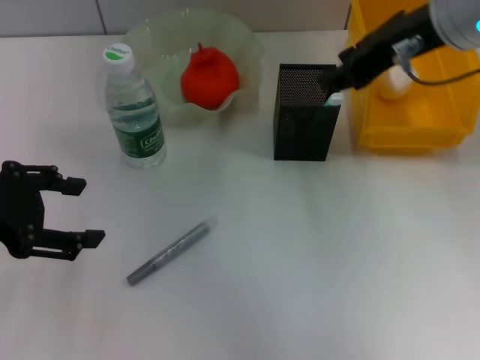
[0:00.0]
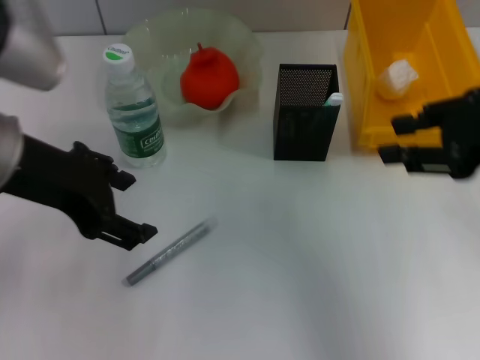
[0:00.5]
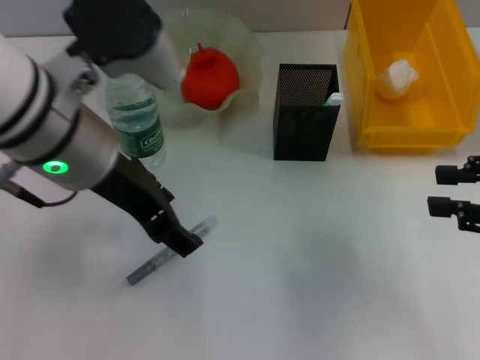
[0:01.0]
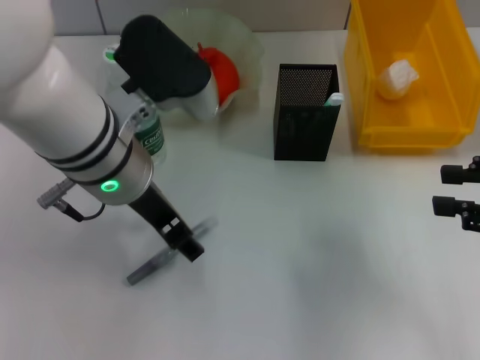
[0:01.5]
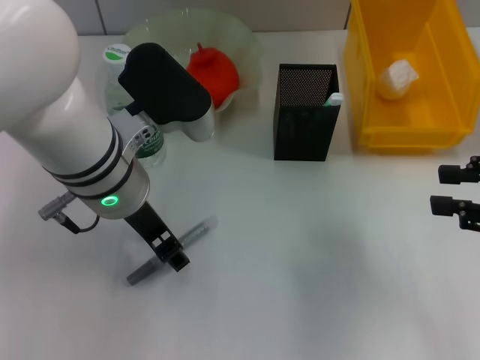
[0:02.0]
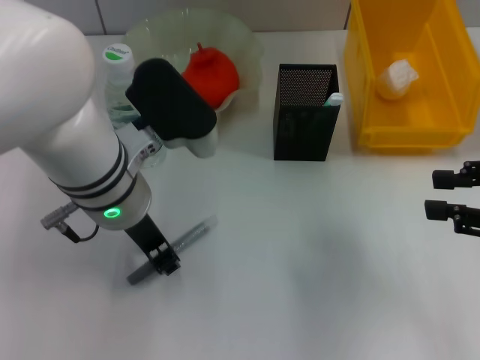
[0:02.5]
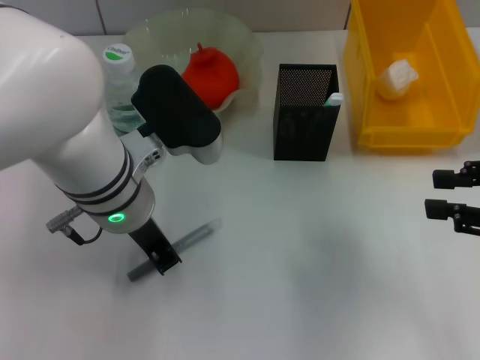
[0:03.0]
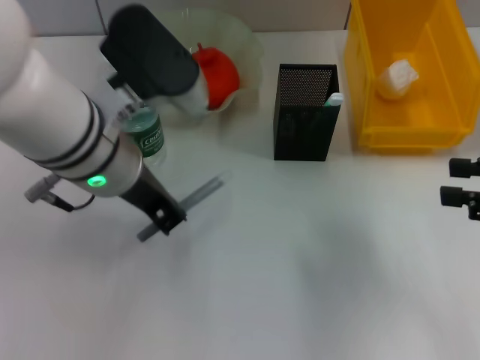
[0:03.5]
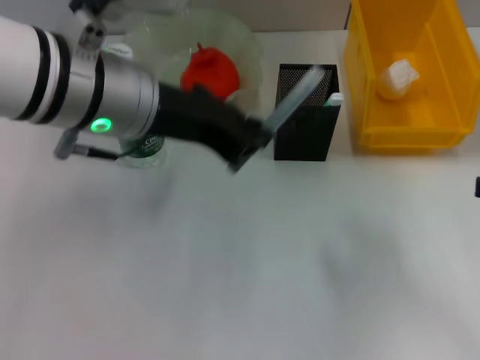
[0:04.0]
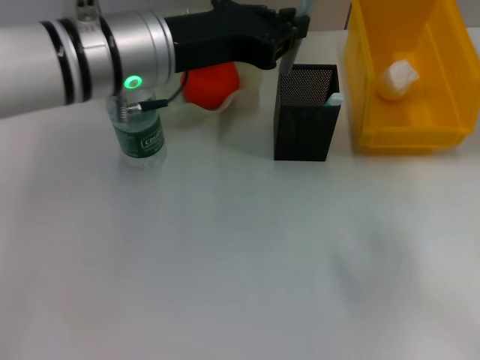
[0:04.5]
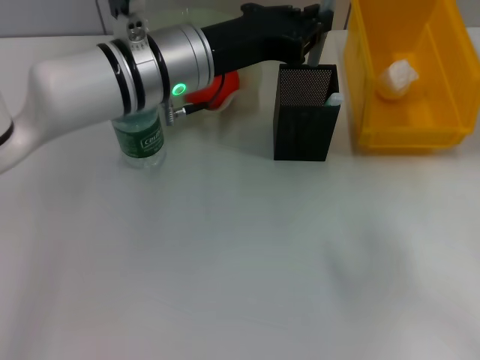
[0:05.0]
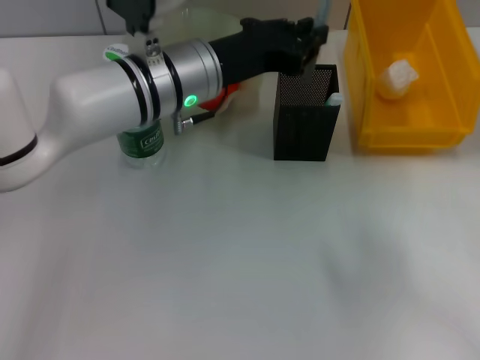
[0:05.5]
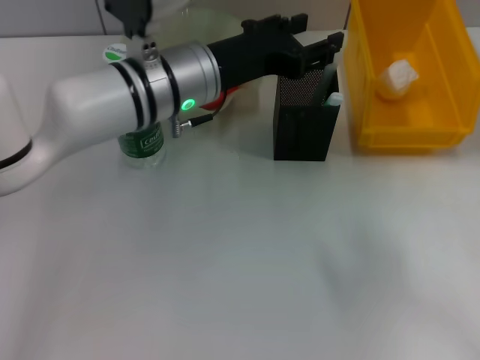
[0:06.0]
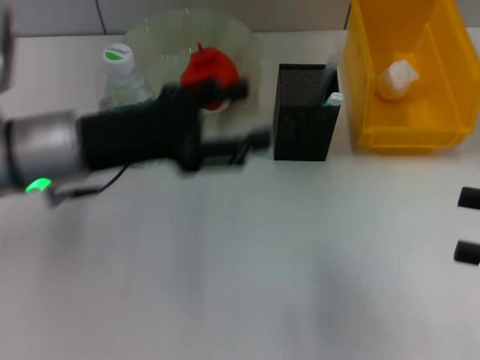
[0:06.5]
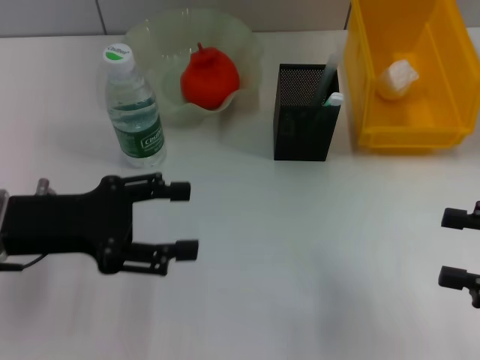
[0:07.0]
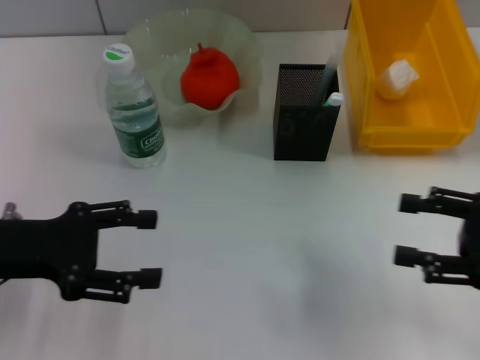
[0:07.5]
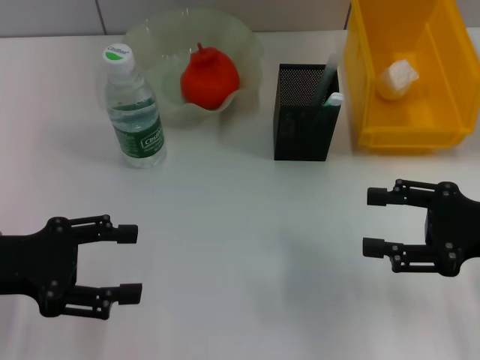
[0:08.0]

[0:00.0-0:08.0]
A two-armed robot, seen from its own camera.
Step, 0.0 to 2.5 s: Grab the gray glue with the left hand.
Step, 3.0 to 5.5 s: Place the gray glue into the pen holder with the left hand.
0.0 to 2.0 s: The right gripper shifts approximately 20 cm to the right, backward and downward. Meanwhile the left gripper moves to the right, roughly 20 cm.
2.0 to 4.0 s: The left gripper goes approximately 5 cm upward, and closes.
4.0 to 6.0 s: The left gripper goes roughly 10 cm downward and forward, and opens its fingers.
6.0 to 8.0 s: The right gripper is displaced to the left and downward by some 10 cm, and opens up; the left gripper heads to the left and backward, covering approximately 25 cm, and opens up.

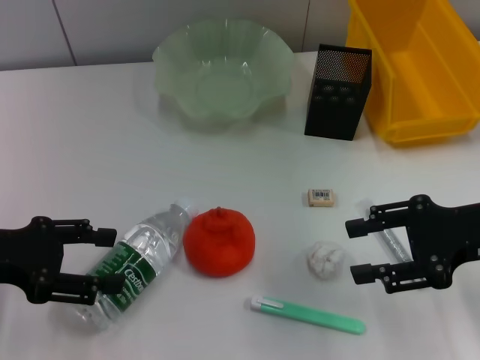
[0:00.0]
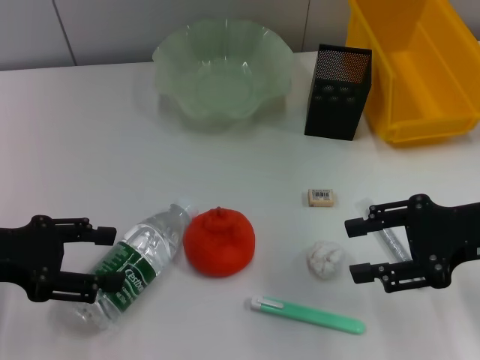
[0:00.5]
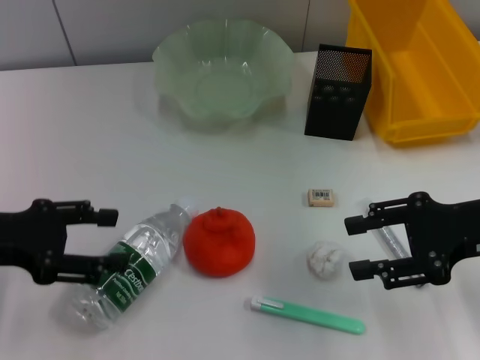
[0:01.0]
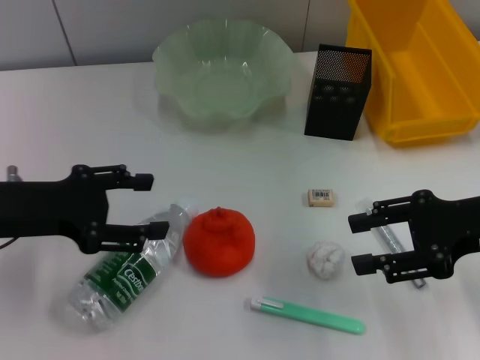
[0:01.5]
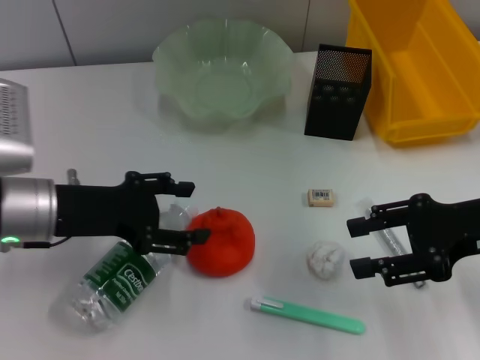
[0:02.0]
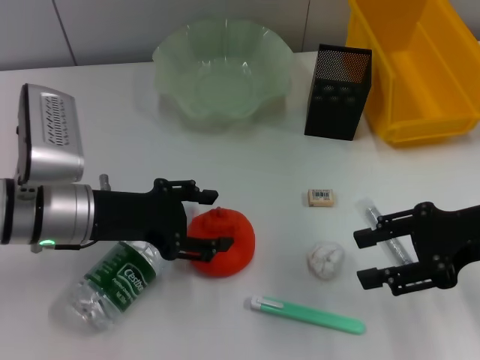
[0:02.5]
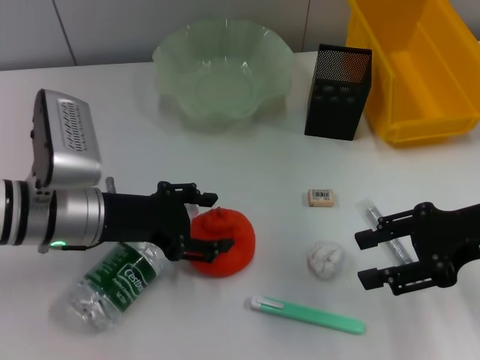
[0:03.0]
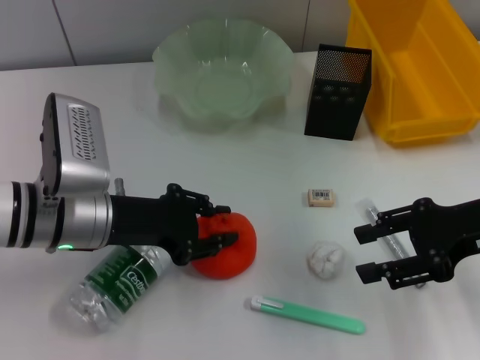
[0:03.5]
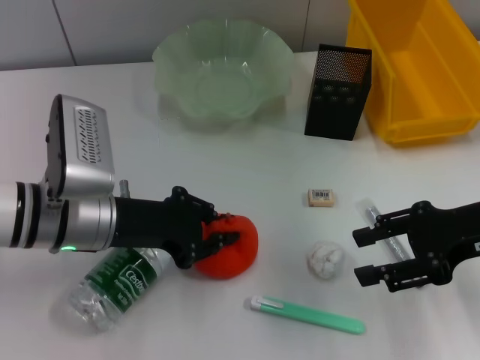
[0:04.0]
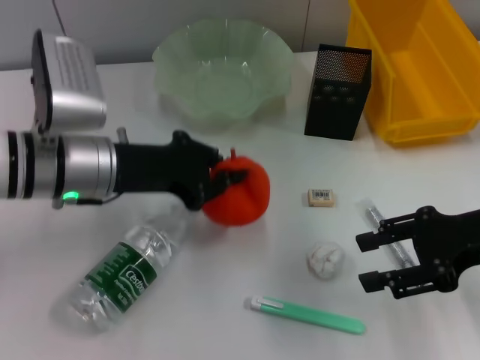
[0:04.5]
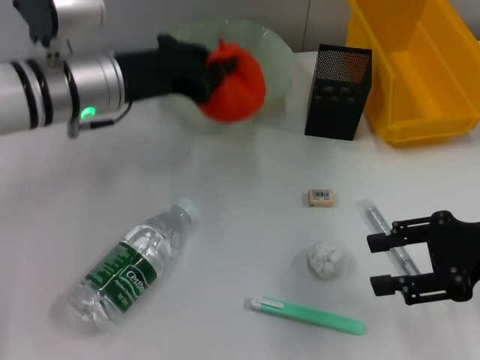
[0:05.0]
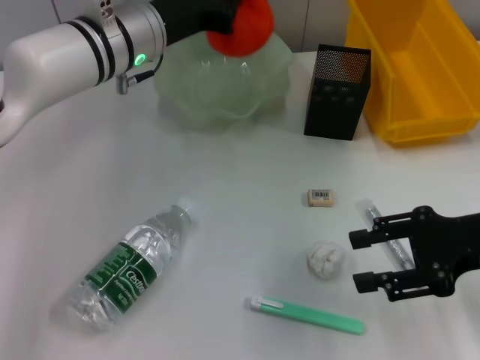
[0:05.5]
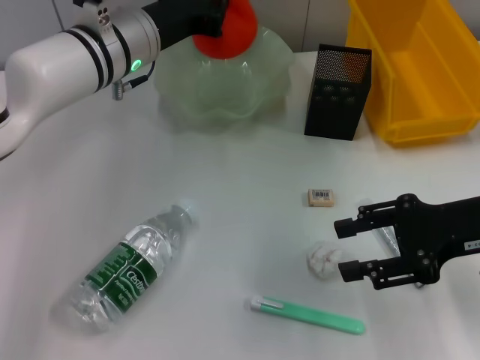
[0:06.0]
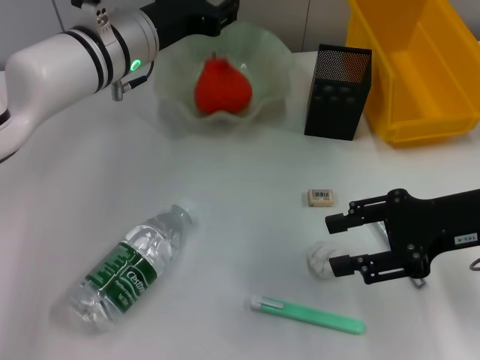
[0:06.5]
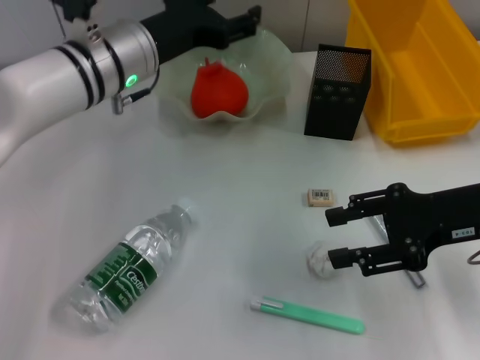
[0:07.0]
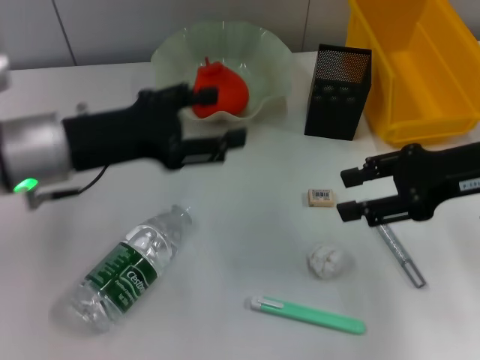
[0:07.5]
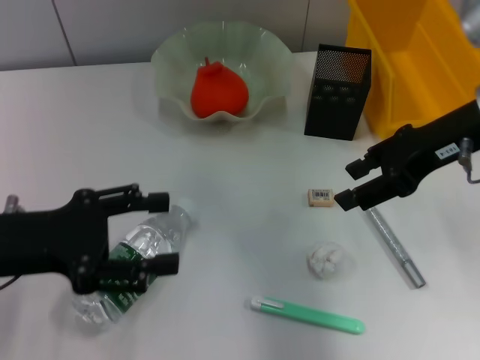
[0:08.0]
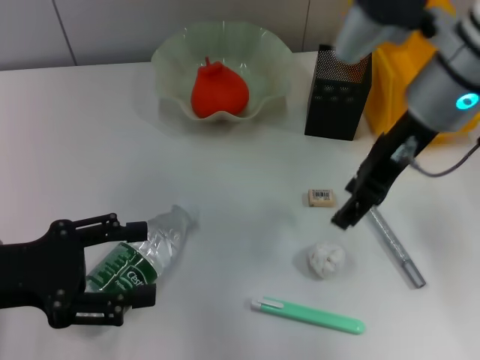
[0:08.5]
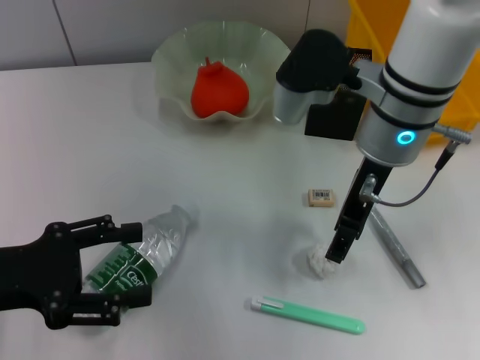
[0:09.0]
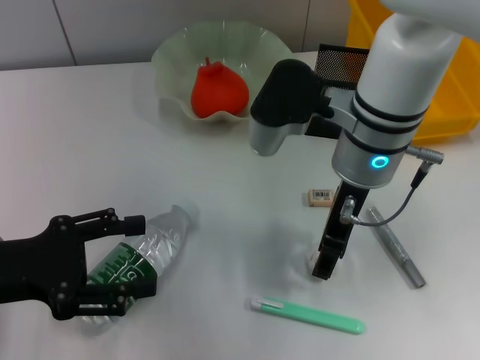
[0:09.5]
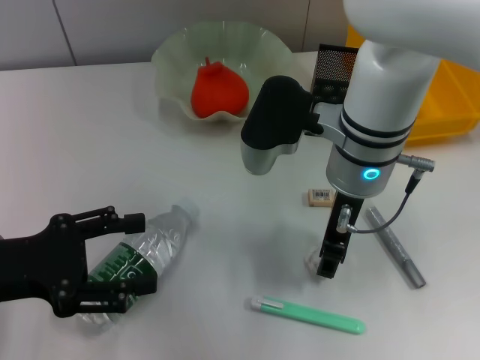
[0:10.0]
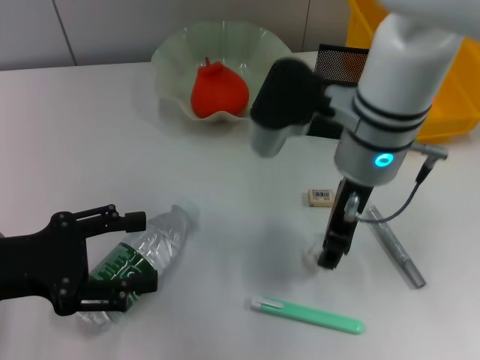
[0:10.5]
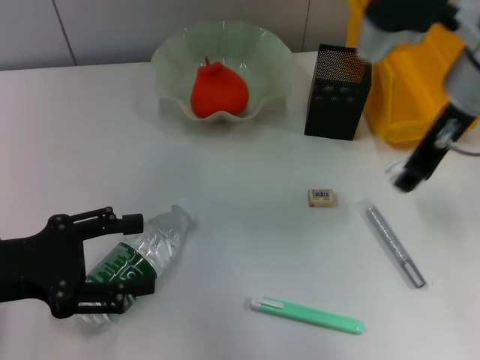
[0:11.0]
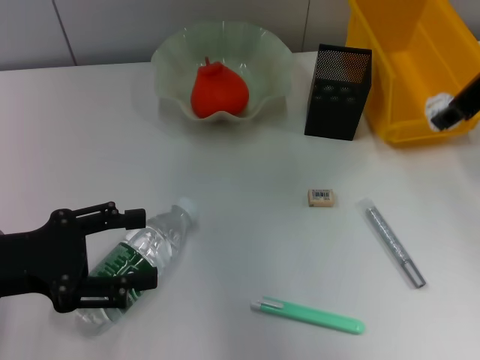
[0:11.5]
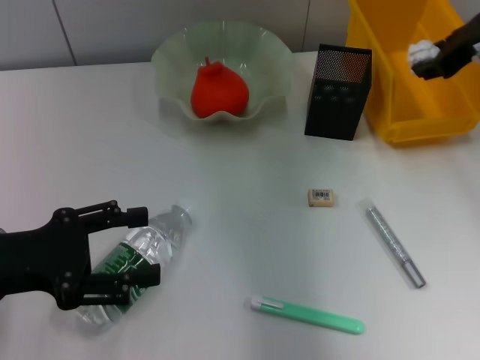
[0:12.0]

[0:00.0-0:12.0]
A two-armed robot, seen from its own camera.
Step, 0.0 to 3.5 s: Grab the orange with the left hand.
Step, 4.0 to 6.5 s: Place the orange into the fruit bowl with the left hand.
Step, 7.0 to 10.0 s: Grab the paper ball with the right hand.
0.0 to 2.0 s: The left gripper travels to the right by approximately 10 cm.
2.0 to 4.0 s: The left gripper closes its fingers.
4.0 to 6.0 s: The left gripper goes some 15 cm forward, upward and to the right.
6.0 to 8.0 s: The left gripper is displaced backward and to the left by some 20 cm, and opens. The right gripper goes some 10 cm upward and forward.
8.0 to 10.0 s: The right gripper moves to the left and downward, about 15 cm.
10.0 to 12.0 s: The right gripper heads to the right, covering some 20 cm.

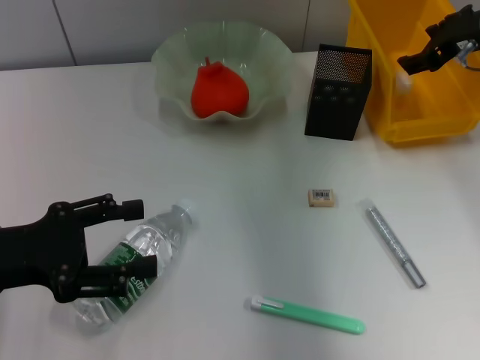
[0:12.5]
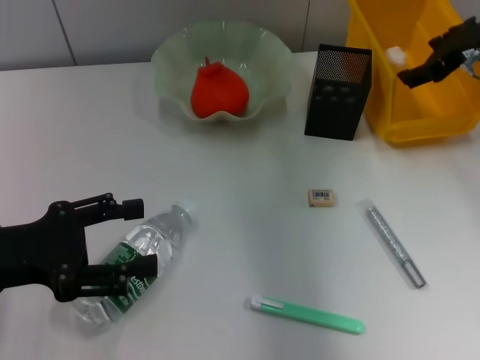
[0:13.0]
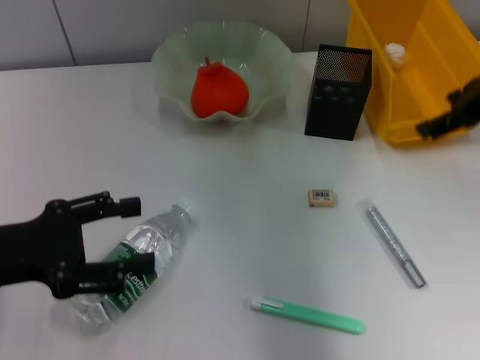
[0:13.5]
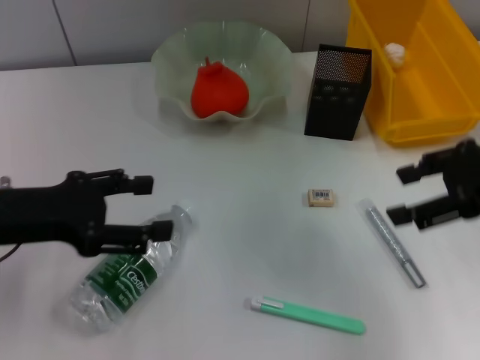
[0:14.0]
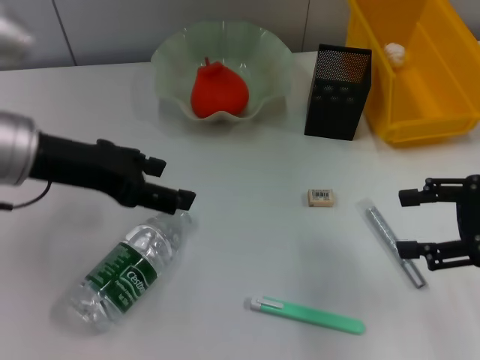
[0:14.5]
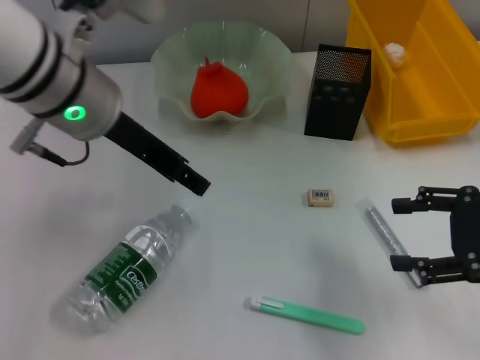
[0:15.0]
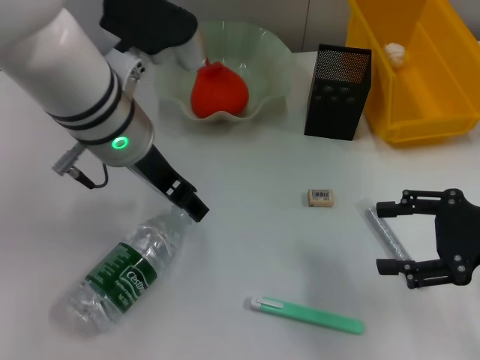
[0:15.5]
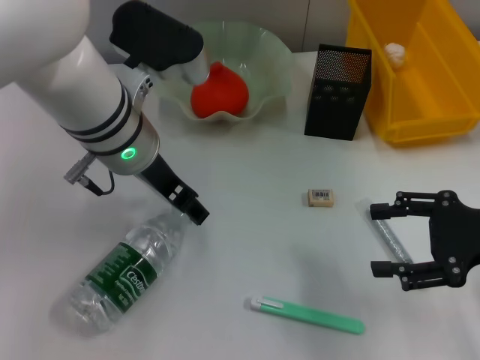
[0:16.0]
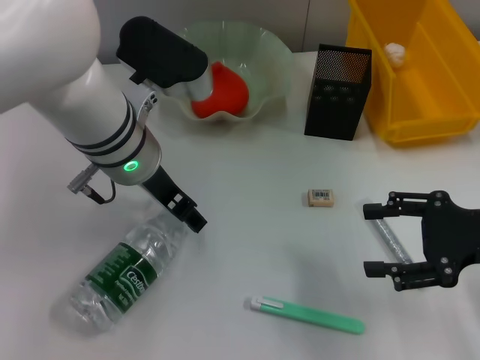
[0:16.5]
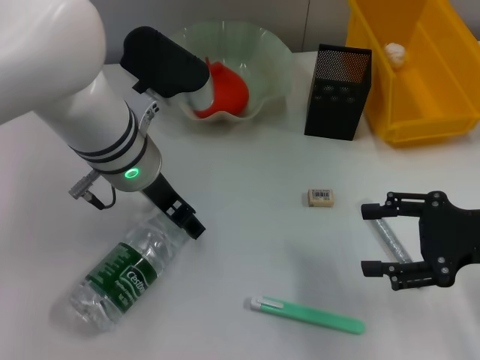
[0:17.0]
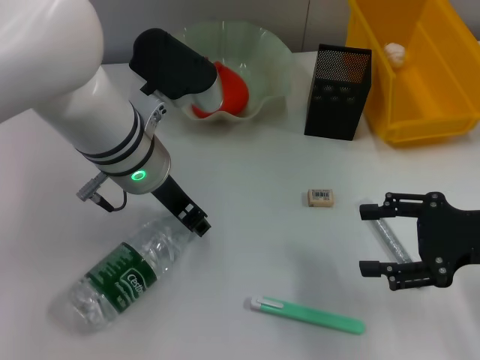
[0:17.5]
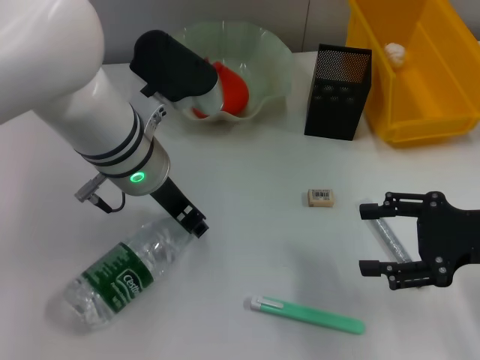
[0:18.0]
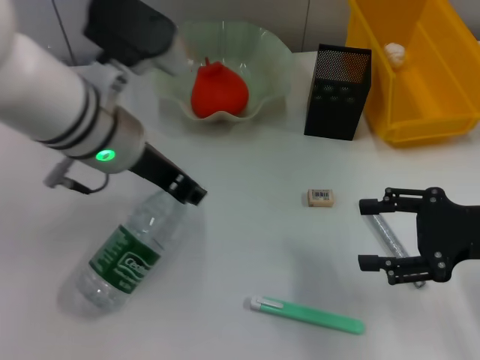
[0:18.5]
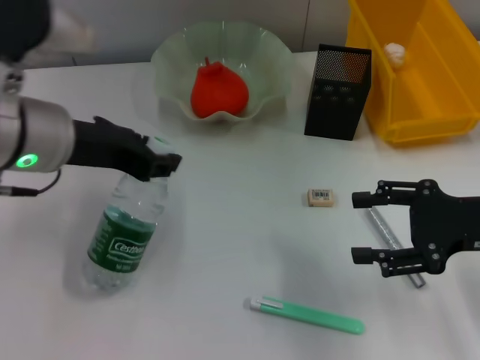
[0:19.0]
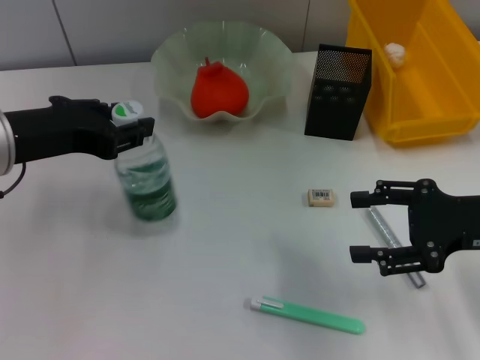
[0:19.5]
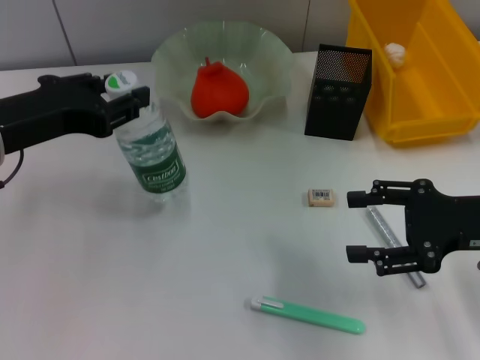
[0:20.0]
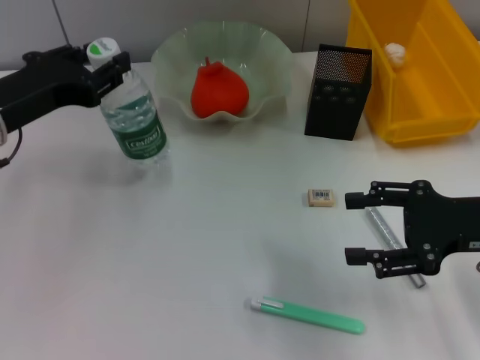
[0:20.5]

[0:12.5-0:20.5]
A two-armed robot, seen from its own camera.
Step, 13.5 to 17.5 s: Grab the water bottle with the left hand.
12.5 to 14.5 s: The right gripper is displaced backward by about 20 cm, and opens up. The left gripper shifts roughly 15 cm forward, to the right and upward.
14.5 to 16.5 s: The left gripper heads to the right, covering approximately 10 cm.
16.5 to 18.5 s: The left gripper closes up.
18.5 to 20.5 s: The left gripper shifts some 10 cm to the left.
